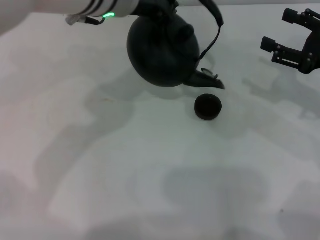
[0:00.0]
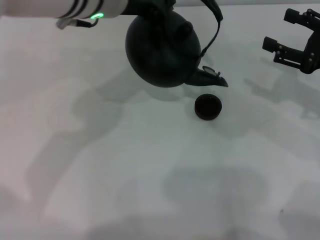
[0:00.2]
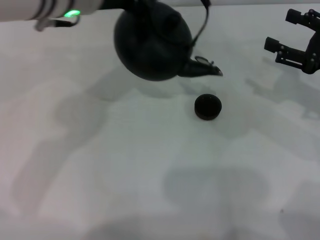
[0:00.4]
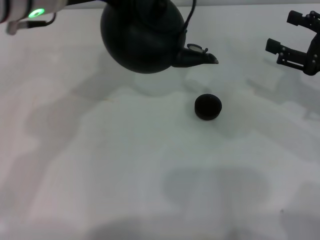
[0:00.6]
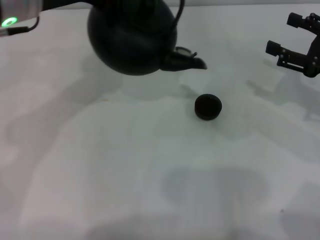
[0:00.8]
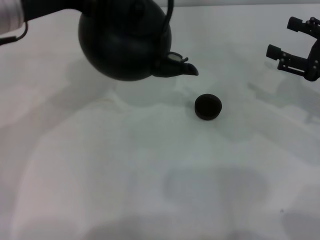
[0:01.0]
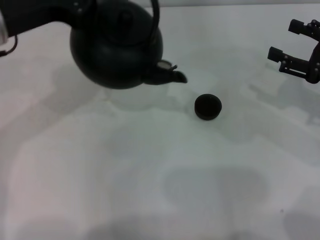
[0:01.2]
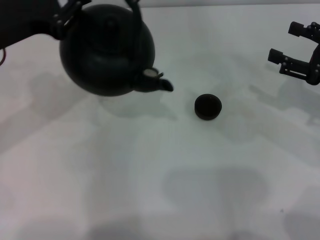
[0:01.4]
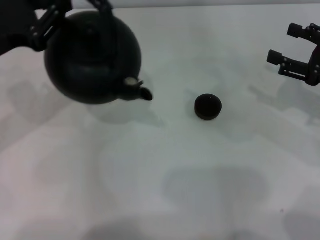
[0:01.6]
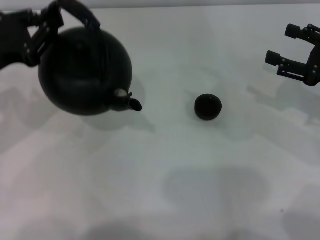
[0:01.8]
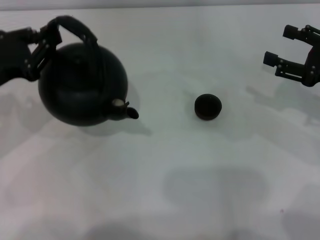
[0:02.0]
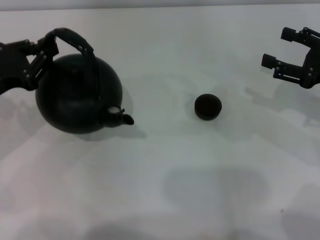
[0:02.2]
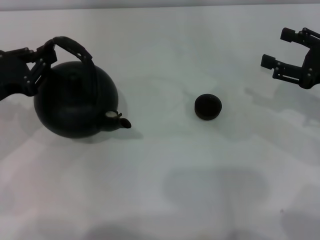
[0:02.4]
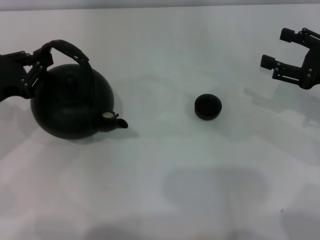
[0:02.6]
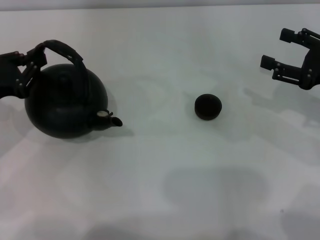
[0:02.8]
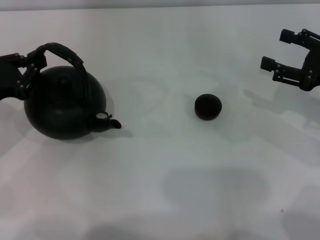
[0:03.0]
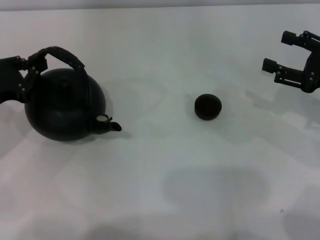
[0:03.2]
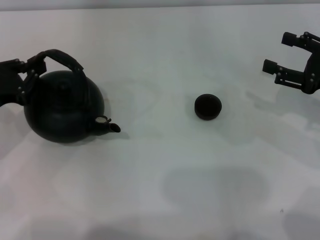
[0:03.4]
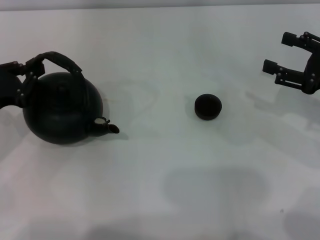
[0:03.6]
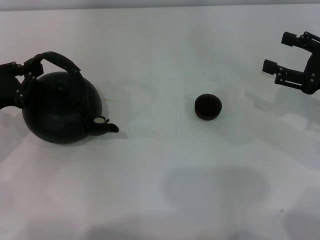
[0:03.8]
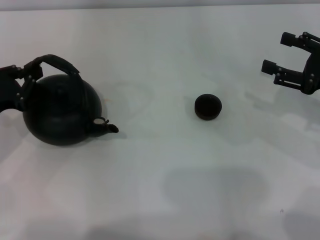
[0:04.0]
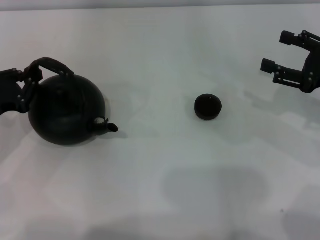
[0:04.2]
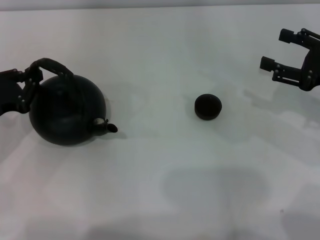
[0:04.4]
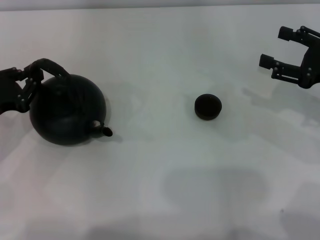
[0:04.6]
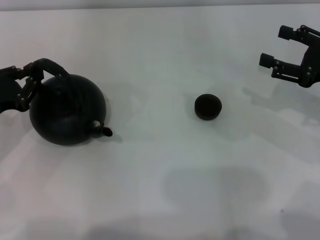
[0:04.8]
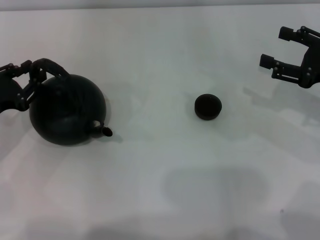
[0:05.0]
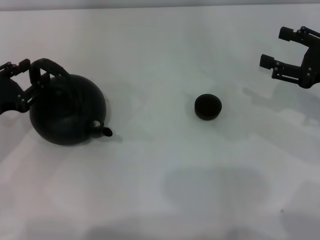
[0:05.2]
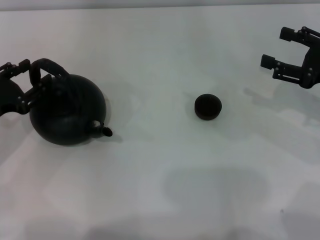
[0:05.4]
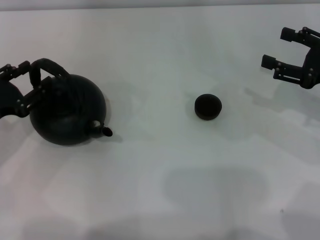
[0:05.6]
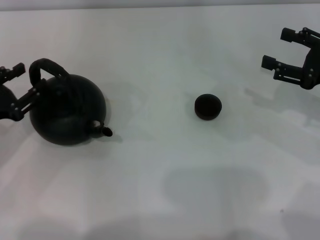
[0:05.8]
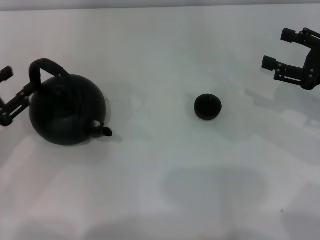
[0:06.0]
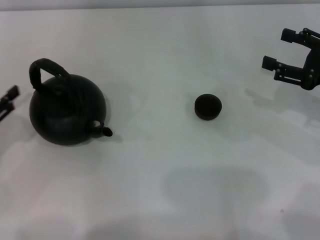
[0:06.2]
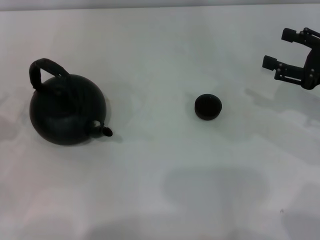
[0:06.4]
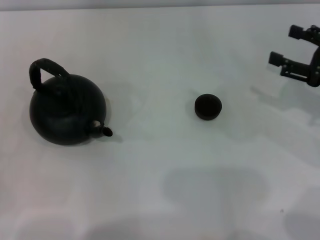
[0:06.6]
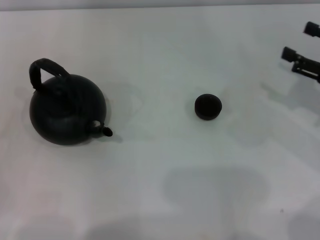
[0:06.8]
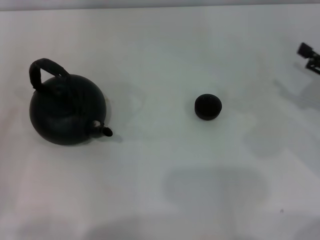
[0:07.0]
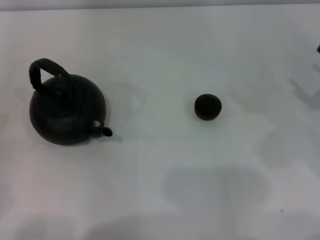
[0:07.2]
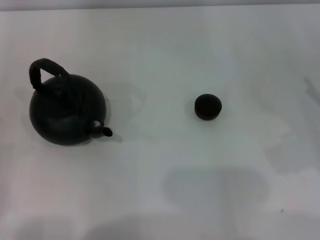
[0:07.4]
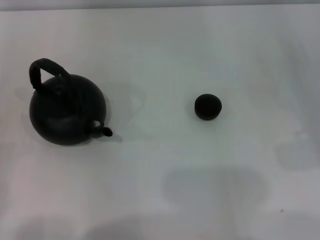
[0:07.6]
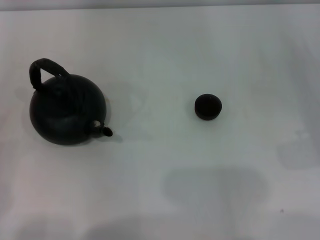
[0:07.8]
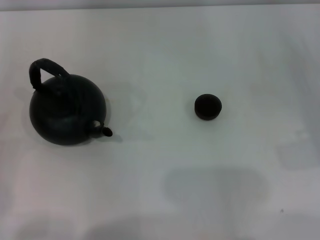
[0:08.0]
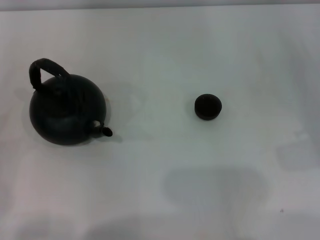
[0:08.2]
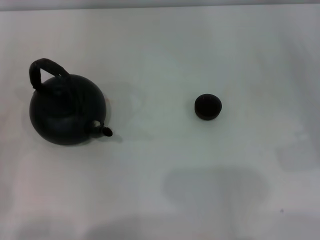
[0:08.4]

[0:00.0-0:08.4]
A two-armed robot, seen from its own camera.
Task of the whole recording: Grasp the handle of the teapot with one hand and pour tea into the teacup.
Step, 0:00.4 to 0:06.0: Put down the teapot with the left gripper.
0:00.0 to 0:01.4: The left gripper moves to the left, some 20 cm.
0:01.4 to 0:02.8: The left gripper shifts roughly 10 cm downward and to the left.
0:02.8 to 0:04.2: There are only small adjustments of the grippers.
0:04.2 to 0:05.6: The left gripper opens its fingers.
0:05.6 to 0:07.0: The left gripper goes roughly 15 cm backward and to the left.

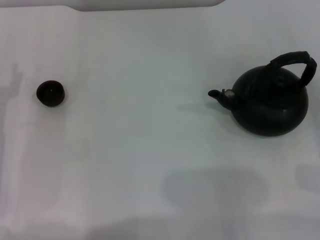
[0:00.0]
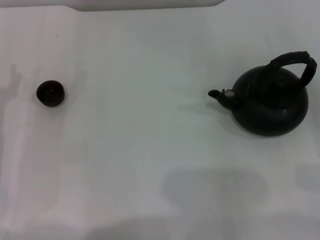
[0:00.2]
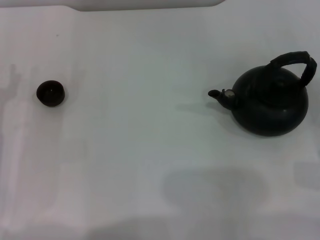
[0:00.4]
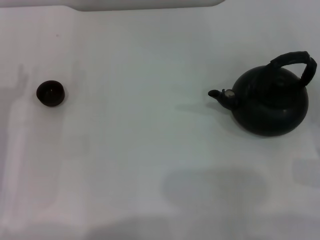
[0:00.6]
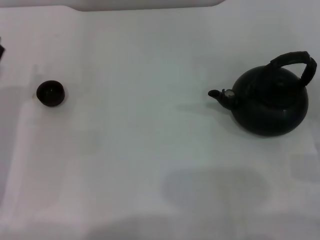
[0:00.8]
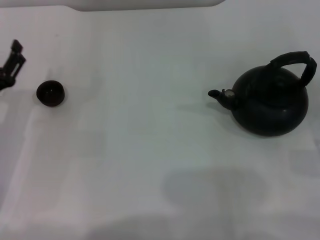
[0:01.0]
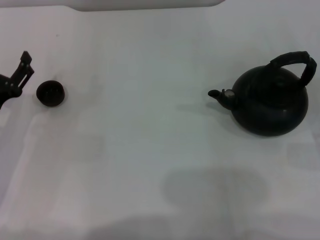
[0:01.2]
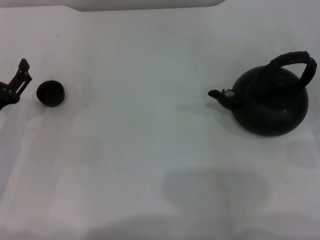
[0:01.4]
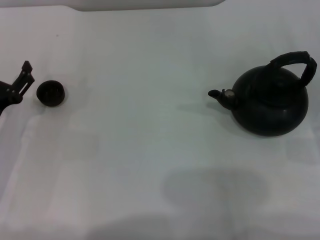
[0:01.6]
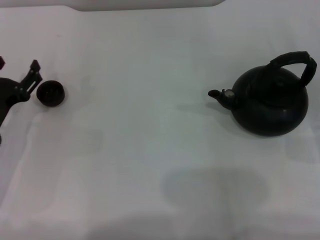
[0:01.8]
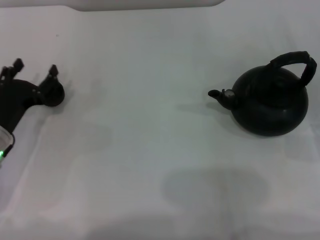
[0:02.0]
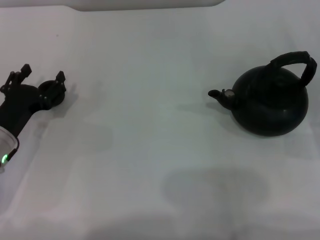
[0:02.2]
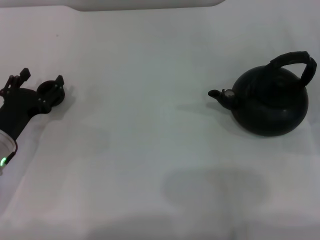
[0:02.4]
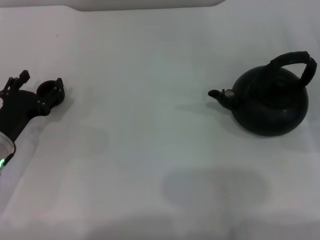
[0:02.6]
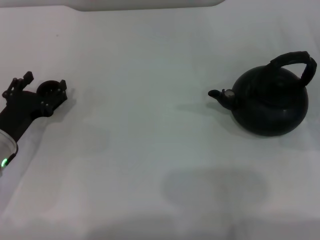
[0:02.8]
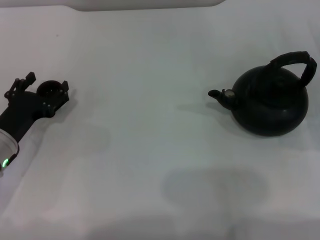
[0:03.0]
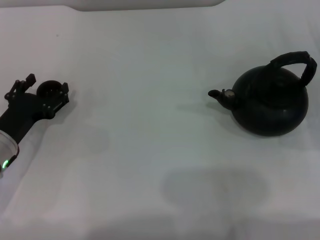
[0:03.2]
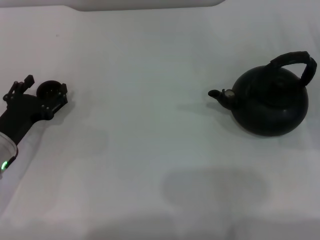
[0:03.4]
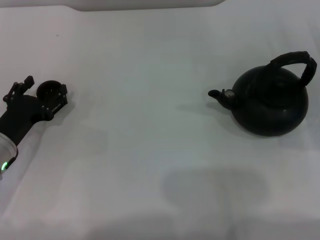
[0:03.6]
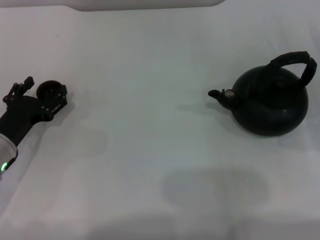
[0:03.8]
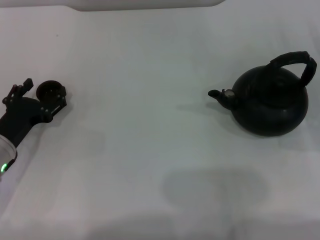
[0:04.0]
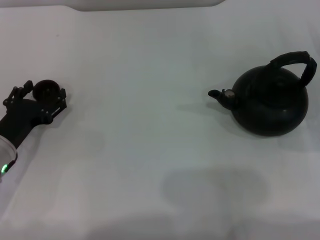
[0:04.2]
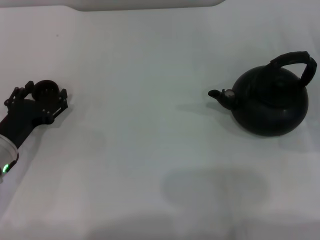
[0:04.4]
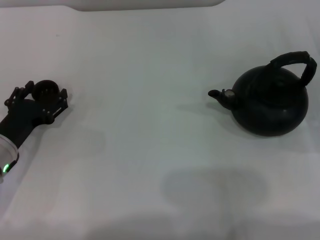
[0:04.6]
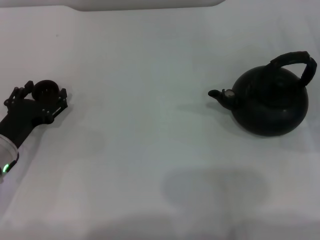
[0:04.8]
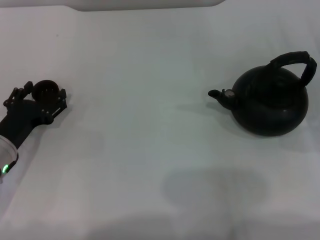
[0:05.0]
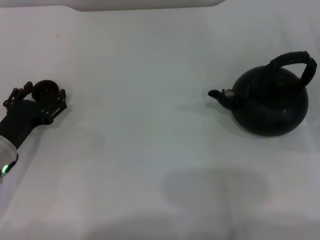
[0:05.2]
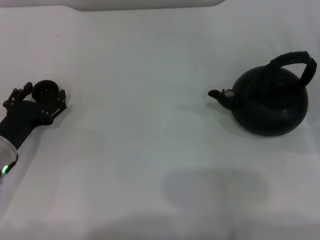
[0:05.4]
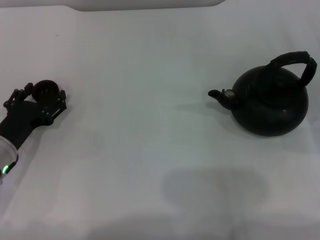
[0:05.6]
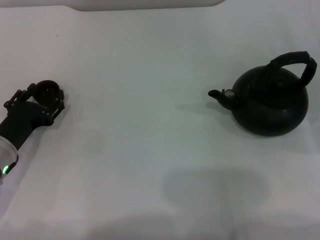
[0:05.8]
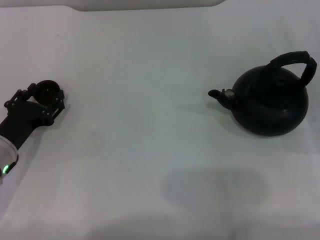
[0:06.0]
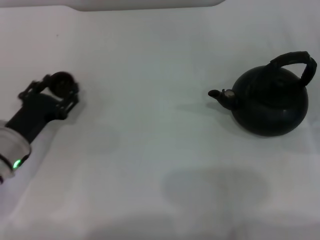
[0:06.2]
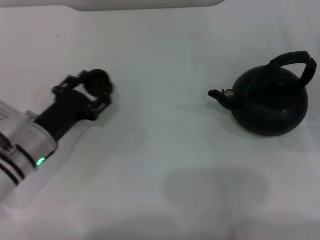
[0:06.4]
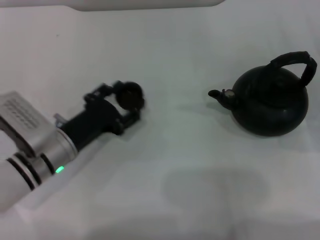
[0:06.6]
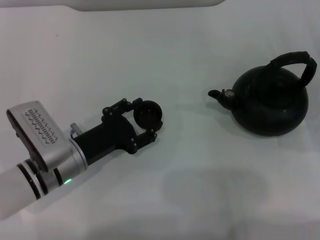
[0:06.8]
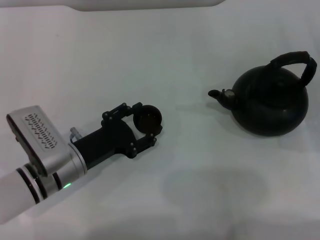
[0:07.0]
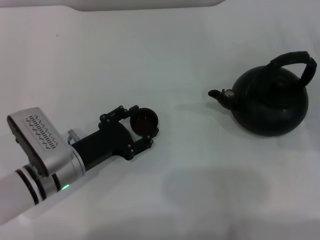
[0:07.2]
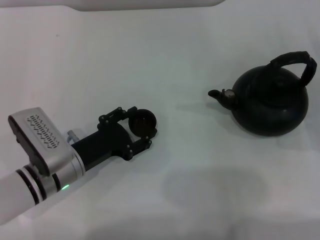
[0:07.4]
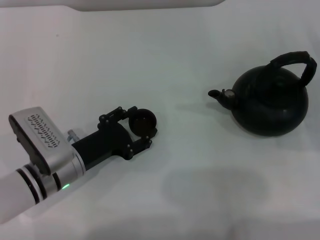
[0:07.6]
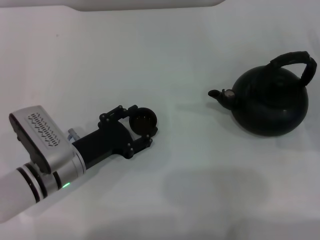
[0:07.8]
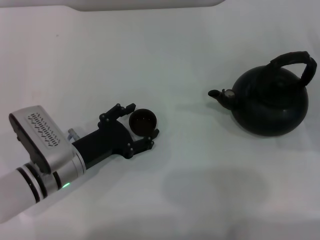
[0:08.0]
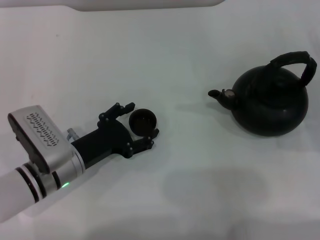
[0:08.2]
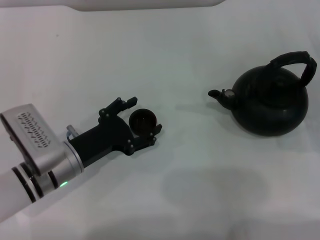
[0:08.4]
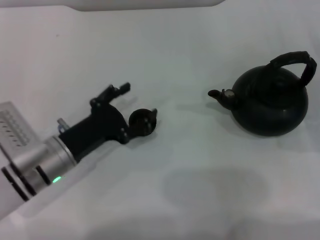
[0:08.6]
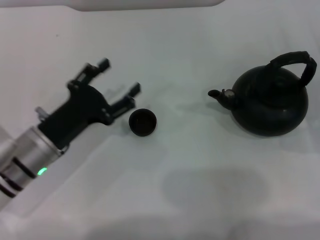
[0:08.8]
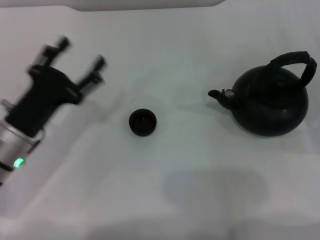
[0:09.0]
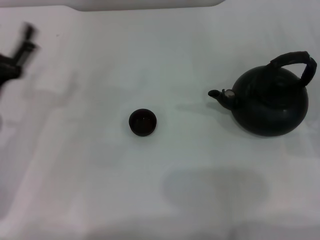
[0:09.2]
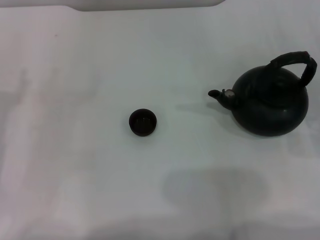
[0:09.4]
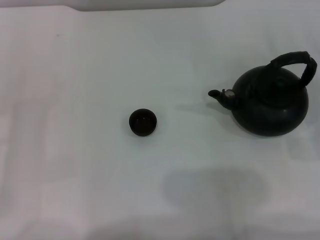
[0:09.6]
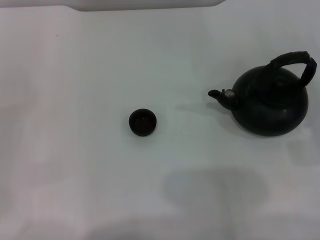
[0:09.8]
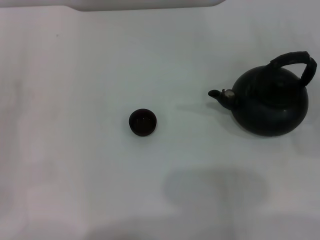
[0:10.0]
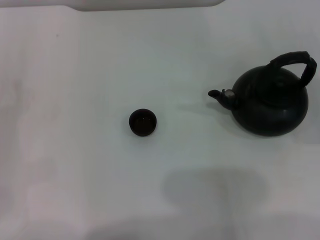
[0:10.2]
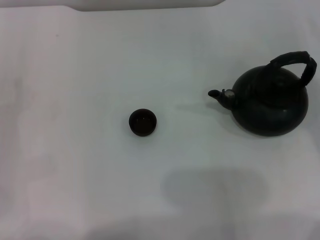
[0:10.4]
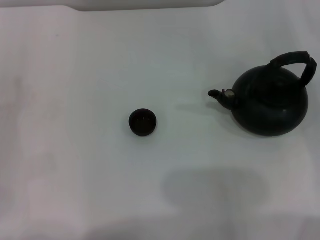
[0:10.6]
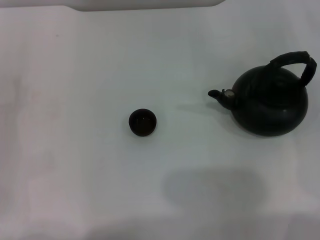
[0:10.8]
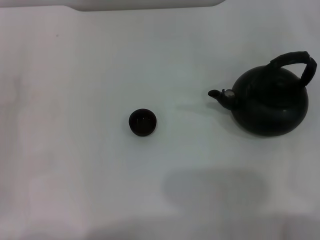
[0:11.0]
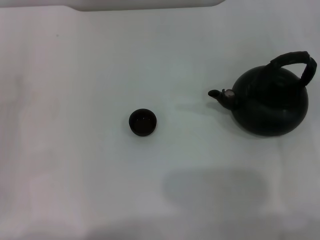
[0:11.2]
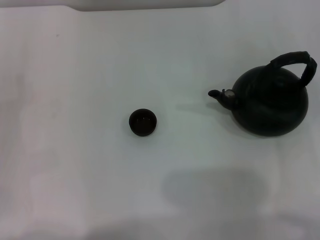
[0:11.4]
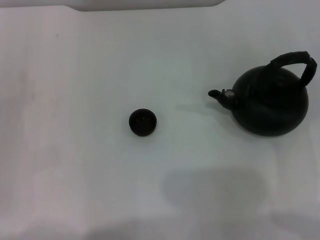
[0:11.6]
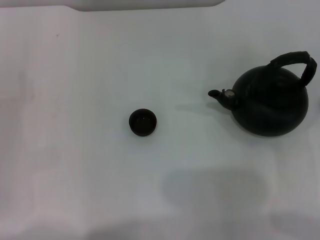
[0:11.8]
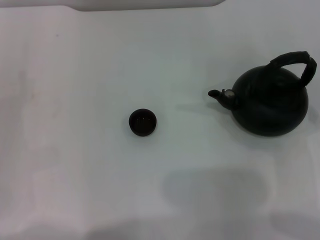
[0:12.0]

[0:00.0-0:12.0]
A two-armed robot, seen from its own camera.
Task of the whole recording: Grasp the handle of the teapot with one hand and pour tea into the teacup.
Step, 0:00.0 to 0:06.0: Pick up the teacup with the left gripper.
Step, 0:06.2 to 0:08.6: Place the teacup in the center of view with the left gripper.
0:01.6 to 0:03.0: The grippers stay close to where they were, moving slightly.
0:03.0 to 0:04.4: Both grippers stay about where they are.
0:04.4 to 0:06.0: The left gripper closes its fingers.
0:06.0 to 0:07.6: The left gripper shifts some 10 cm to the right.
0:07.6 to 0:09.0: The left gripper changes place by some 5 cm, and opens.
0:09.0 to 0:10.4: The left gripper moves to the left, roughly 15 cm.

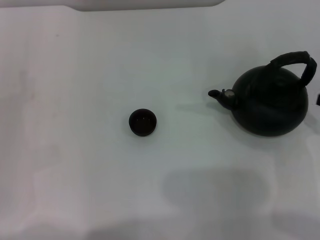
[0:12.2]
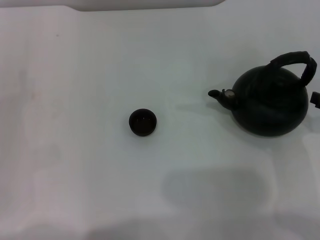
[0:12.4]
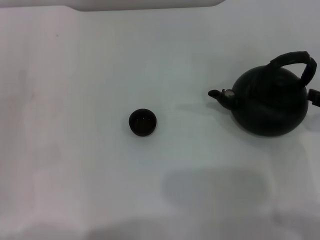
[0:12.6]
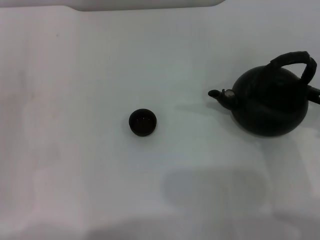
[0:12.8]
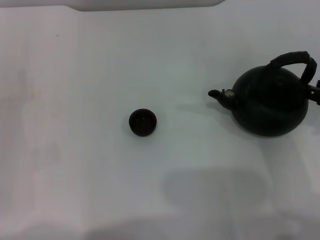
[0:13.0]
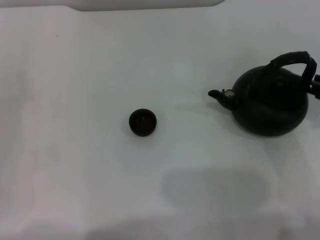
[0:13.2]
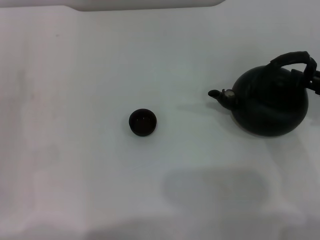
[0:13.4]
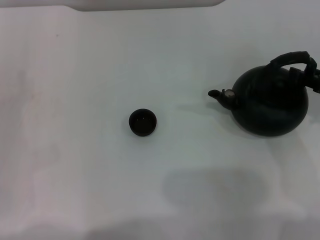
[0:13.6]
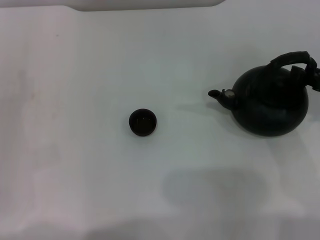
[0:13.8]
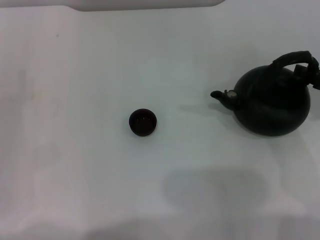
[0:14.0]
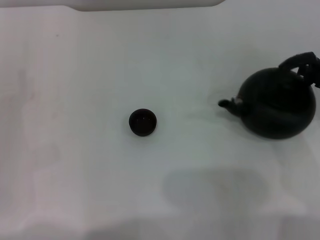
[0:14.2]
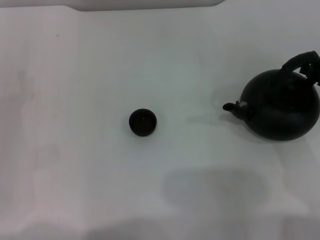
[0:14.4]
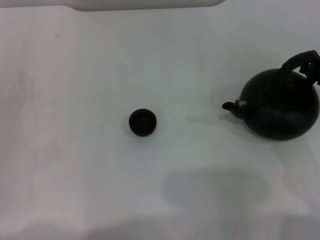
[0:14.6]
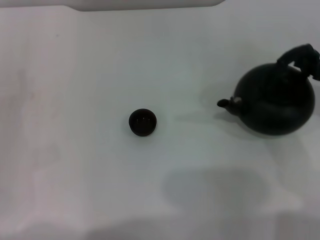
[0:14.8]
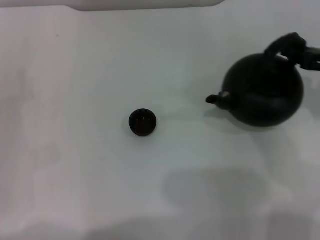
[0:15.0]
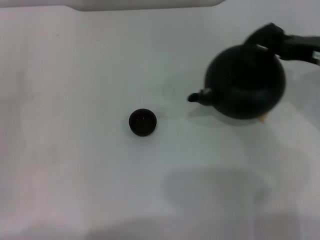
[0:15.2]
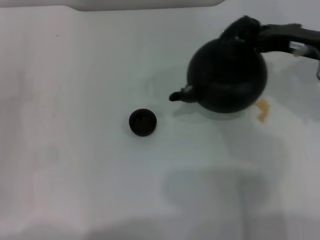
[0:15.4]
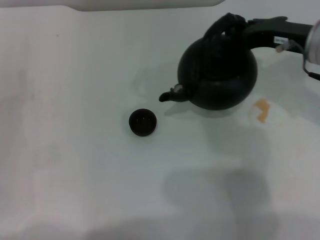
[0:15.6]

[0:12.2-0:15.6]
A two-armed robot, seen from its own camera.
Task of the whole recording: Grasp the handle of the teapot with one hand and pour tea into the teacup.
Step, 0:12.2 to 0:15.0: Pick up the teapot with the right gripper.
0:13.8 to 0:15.6: The right gripper heads to the left, forward and upward, covering approximately 15 cm, and closes.
